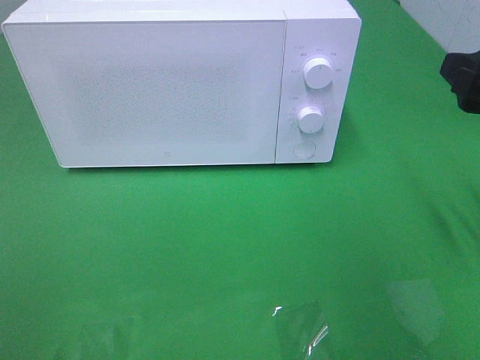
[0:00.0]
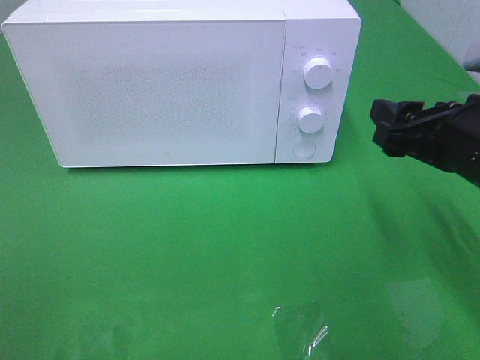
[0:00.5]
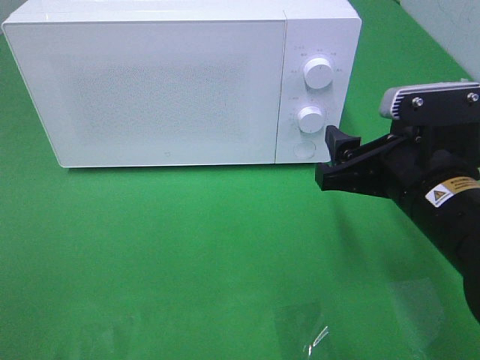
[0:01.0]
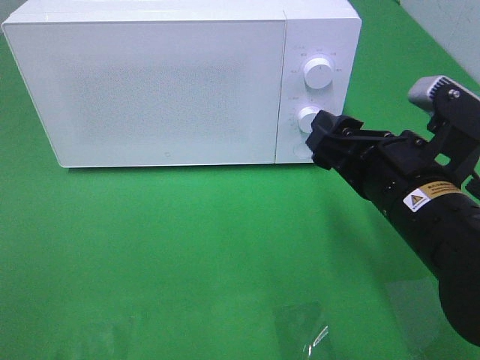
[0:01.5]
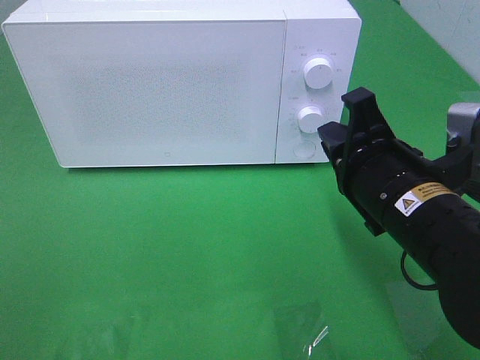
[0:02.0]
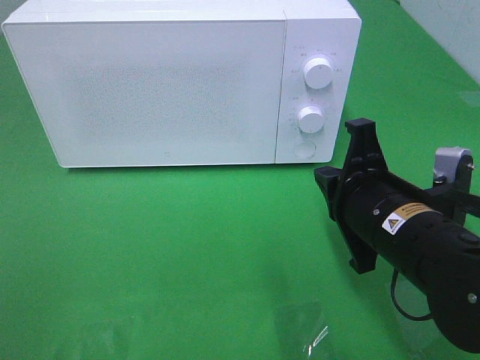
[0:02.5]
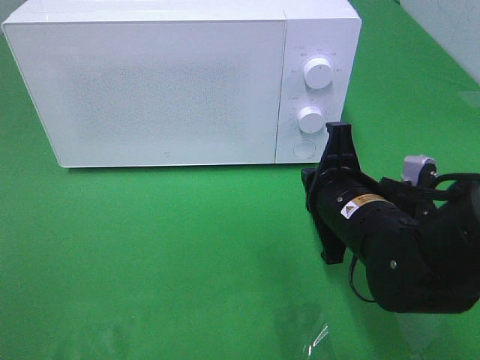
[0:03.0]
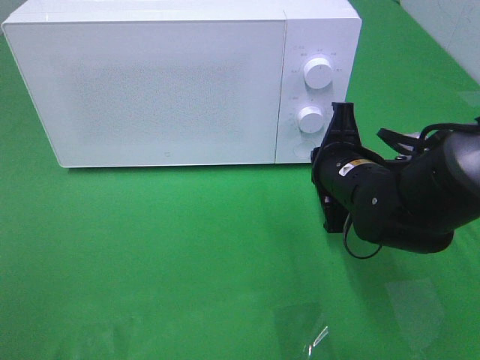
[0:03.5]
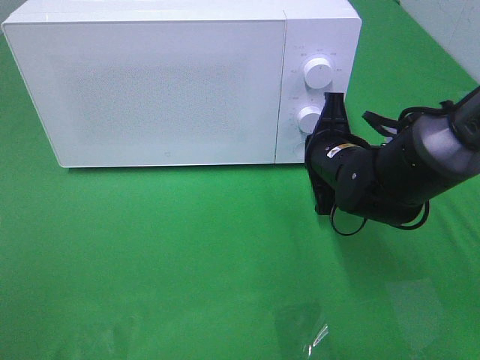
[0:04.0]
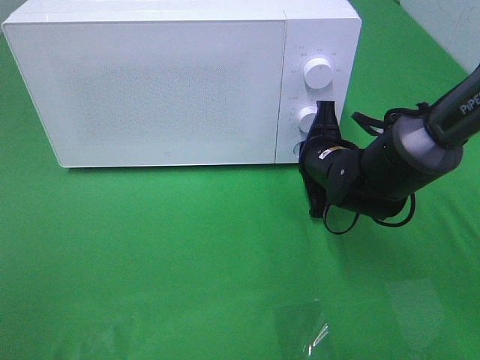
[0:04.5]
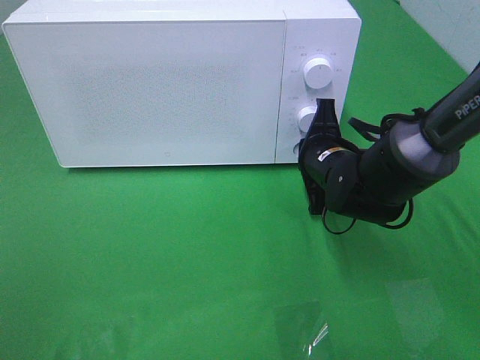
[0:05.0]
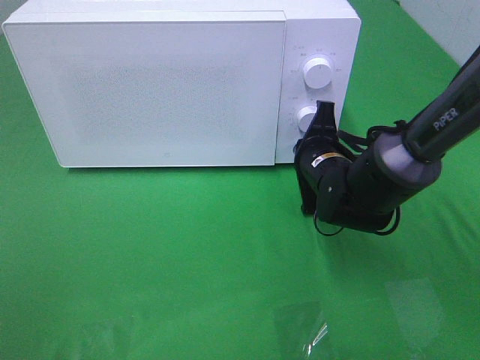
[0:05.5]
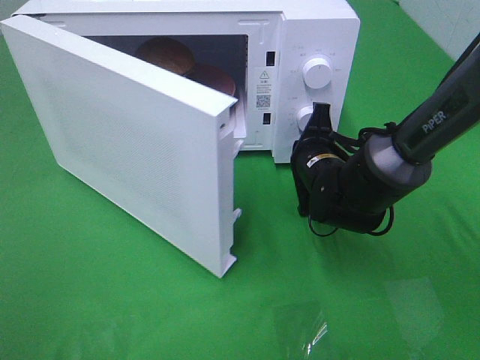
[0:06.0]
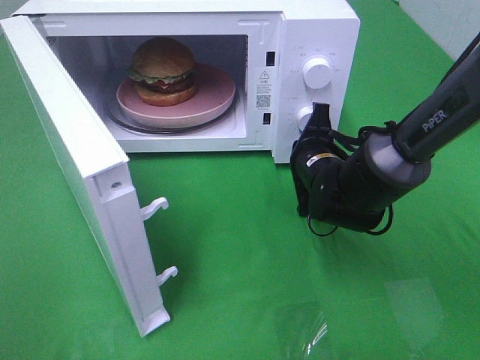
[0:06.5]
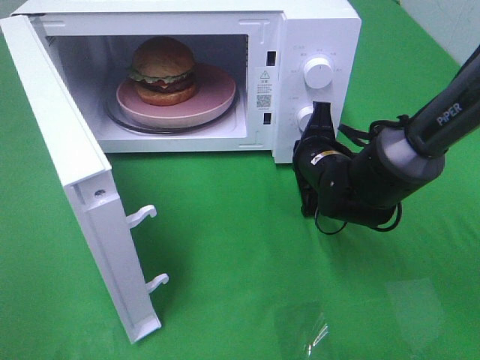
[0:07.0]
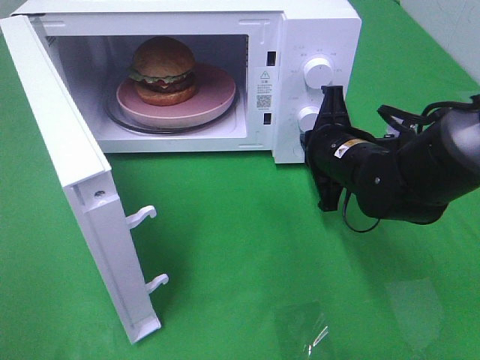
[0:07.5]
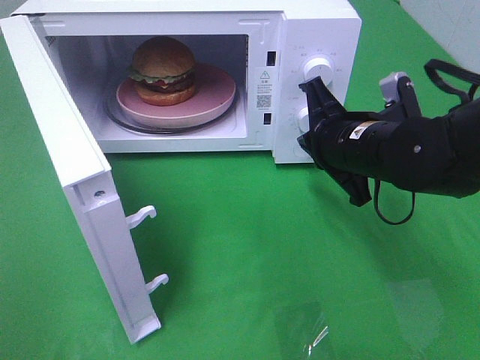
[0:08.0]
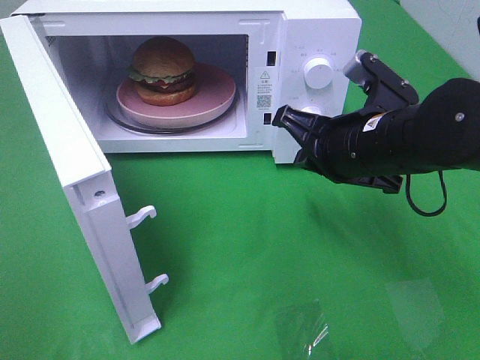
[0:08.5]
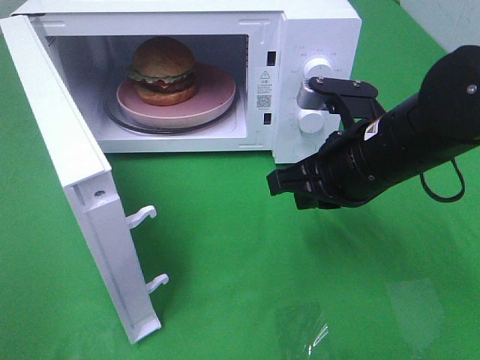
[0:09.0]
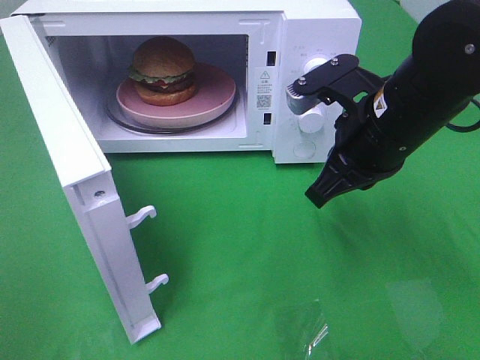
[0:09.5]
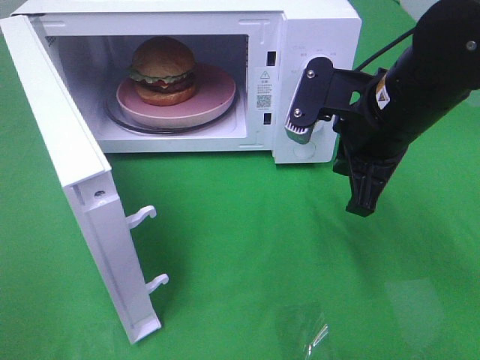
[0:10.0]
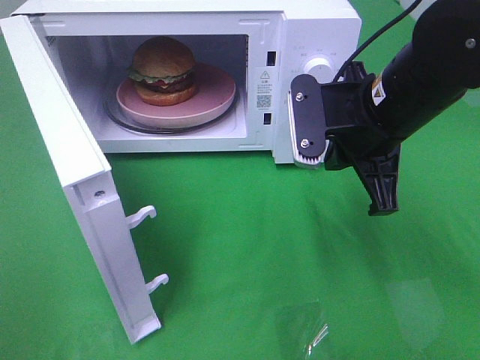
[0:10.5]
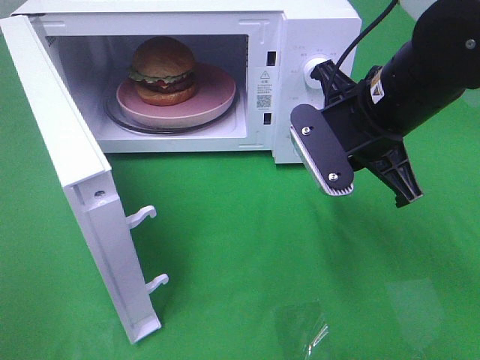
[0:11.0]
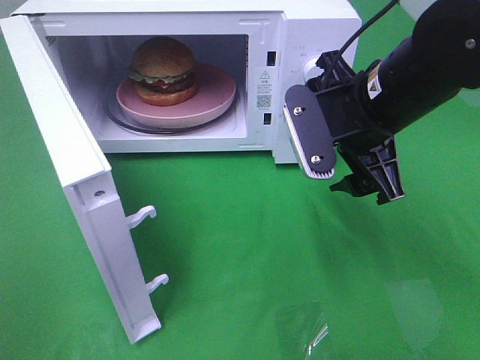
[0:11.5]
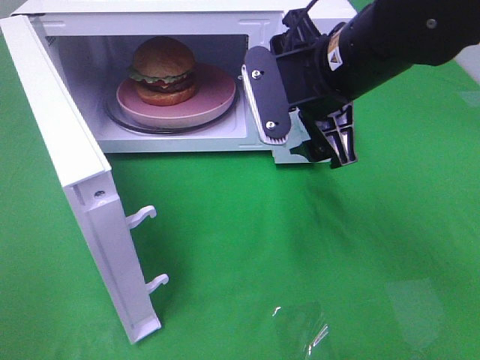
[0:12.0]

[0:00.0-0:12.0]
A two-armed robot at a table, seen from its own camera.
Task of the whole recording: Heat the burger.
Step, 0:00.0 to 0:07.0: Right hand: press the switch.
0:00.0 to 0:02.0: The right gripper heads to the left and downward, covering approximately 15 cm, and closes.
0:02.0 to 0:04.0: The right gripper moves forward and downward, roughly 15 cm.
0:06.0 to 0:08.0: The right gripper travels upward and backward by about 10 cm.
0:08.0 to 0:10.0: The right gripper travels upward by some 5 cm.
0:10.0 to 0:12.0: The right gripper shifts by some 5 cm, and opens.

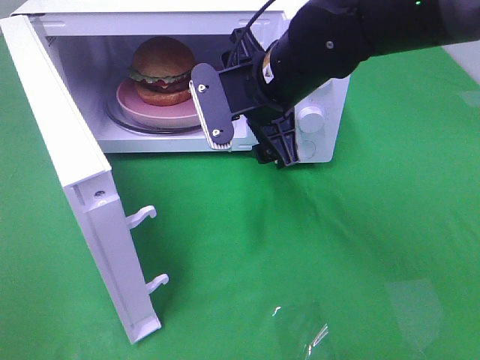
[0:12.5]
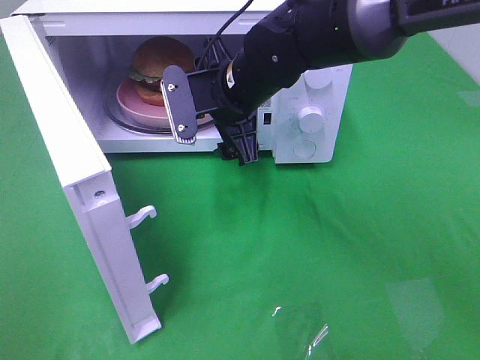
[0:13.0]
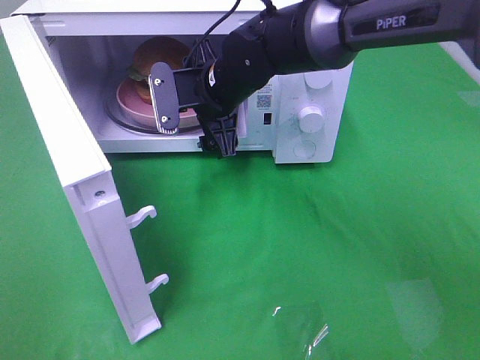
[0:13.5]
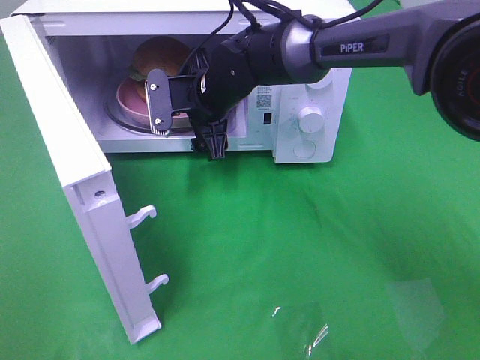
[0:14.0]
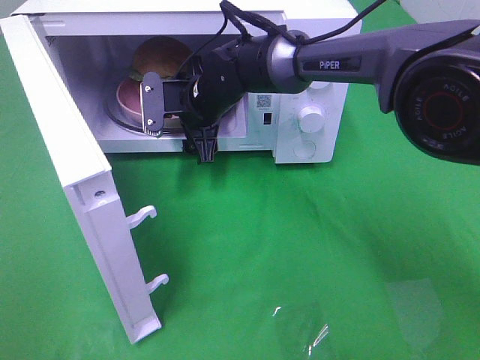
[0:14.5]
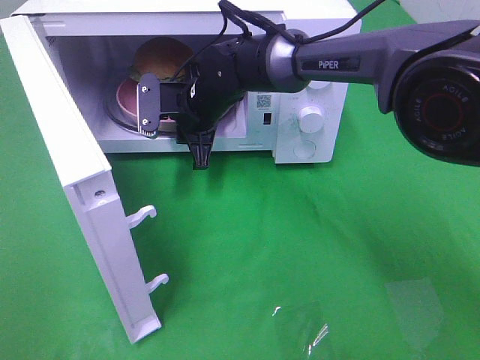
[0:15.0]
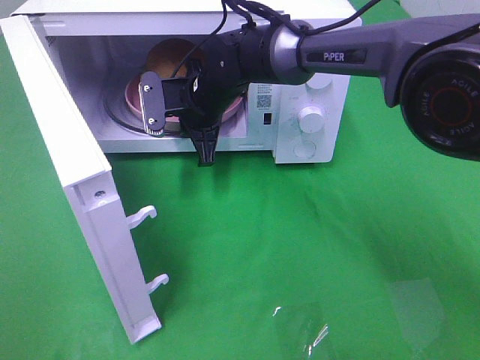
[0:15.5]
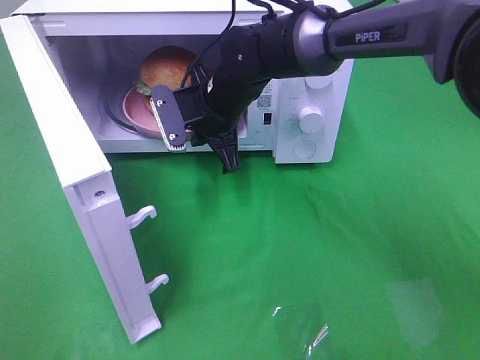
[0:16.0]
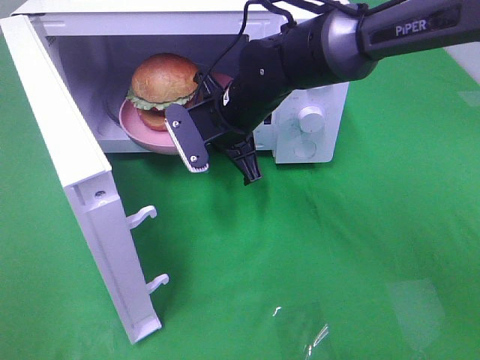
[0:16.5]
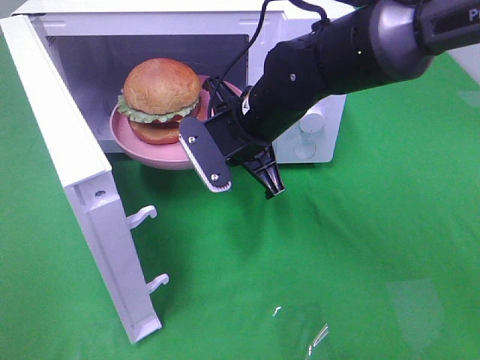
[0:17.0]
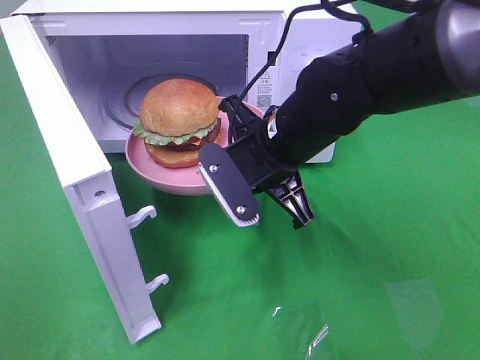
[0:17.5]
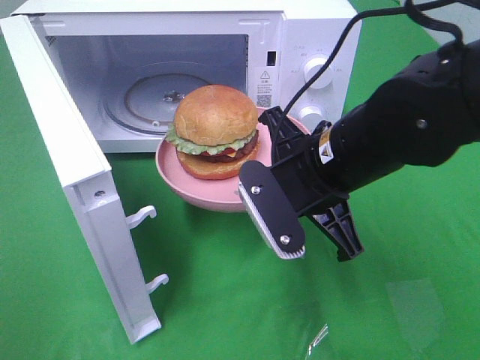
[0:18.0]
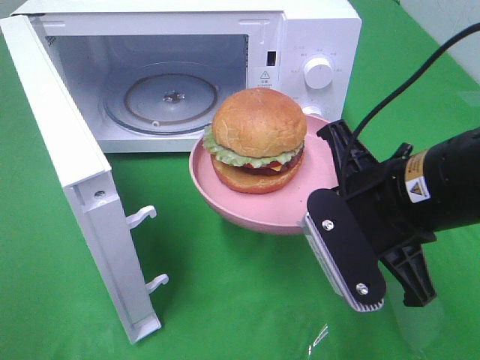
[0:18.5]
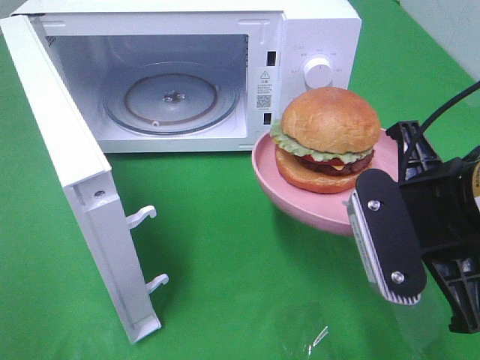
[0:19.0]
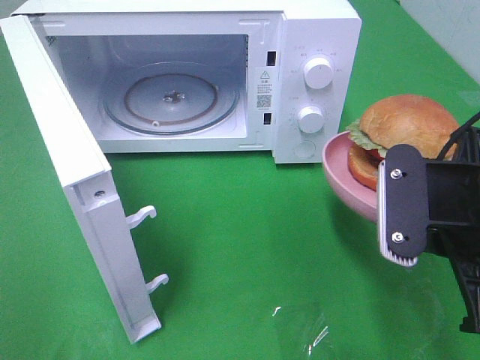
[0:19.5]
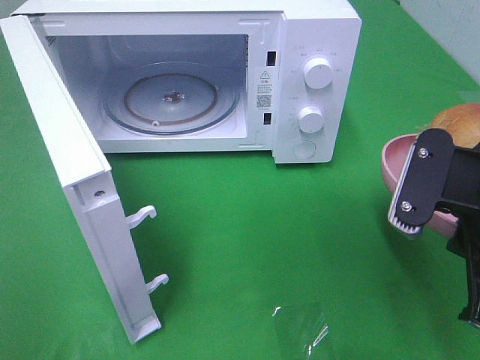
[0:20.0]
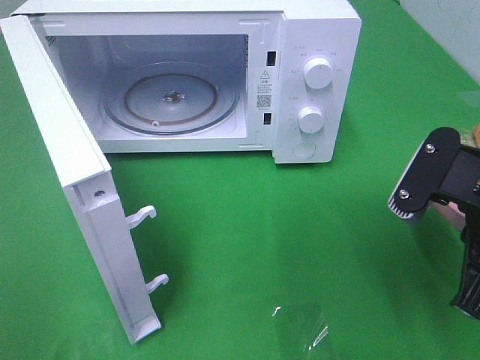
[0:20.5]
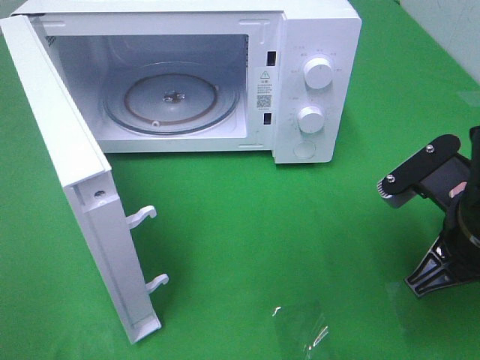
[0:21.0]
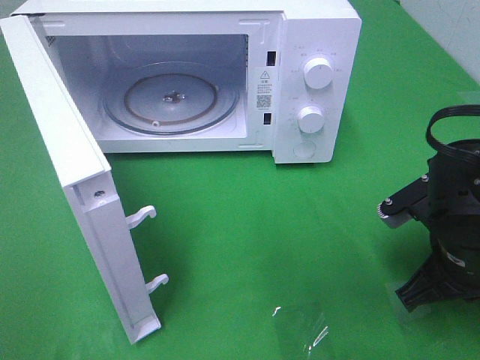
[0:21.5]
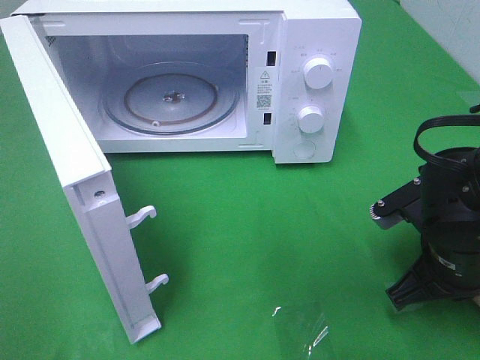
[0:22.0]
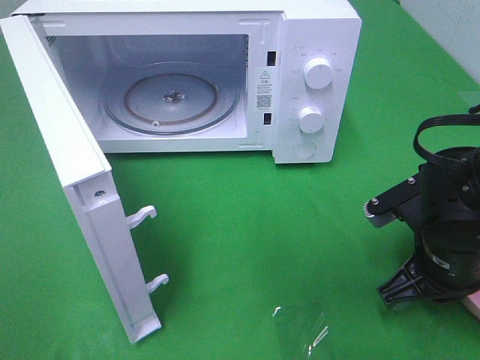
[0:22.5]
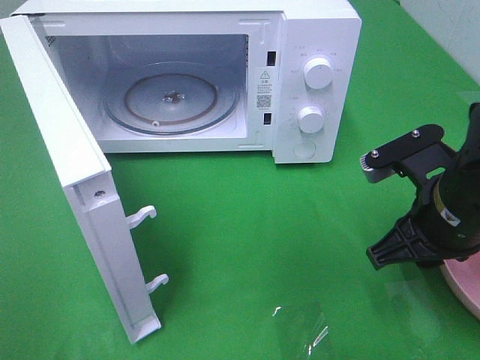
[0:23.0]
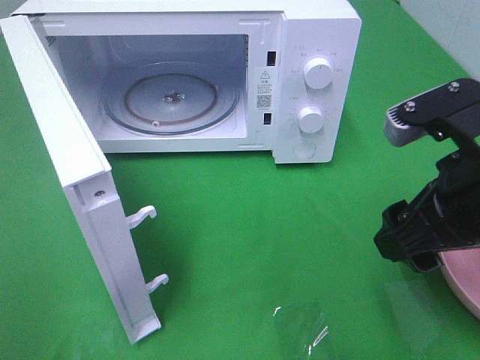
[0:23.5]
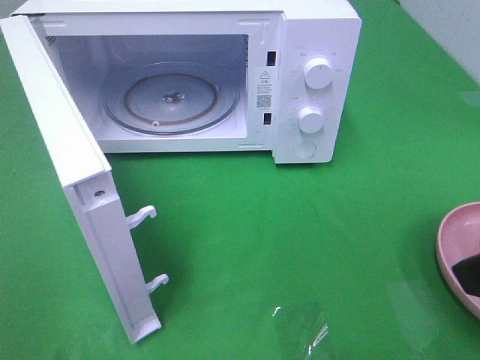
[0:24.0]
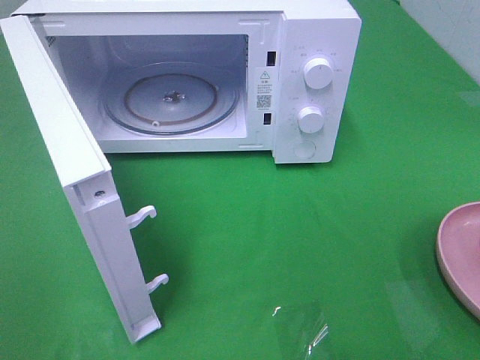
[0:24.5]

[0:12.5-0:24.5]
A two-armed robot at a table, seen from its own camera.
Task of the whole recording: Heat the burger.
Step, 0:12.5 to 0:15.0: Right hand: grab the plate with the hamburger.
Step, 0:15.5 to 0:23.5: Right hand: place the plate on the table.
0:12.5 to 0:14.5: The right gripper moves forward, downward and to the left, roughly 15 cm.
0:14.5 to 0:16.5: The right gripper heads backward, covering about 5 cm, and closes its fingers.
0:16.5 to 0:18.5: The right gripper heads backward and to the right, covering approximately 25 cm.
0:18.5 to 0:20.5: The right gripper heads to the right, covering about 5 cm.
0:20.5 to 0:22.5: The right gripper goes roughly 10 cm downward.
0:22.5 to 0:24.5: The right gripper travels upward and backward by some 25 cm, and opens.

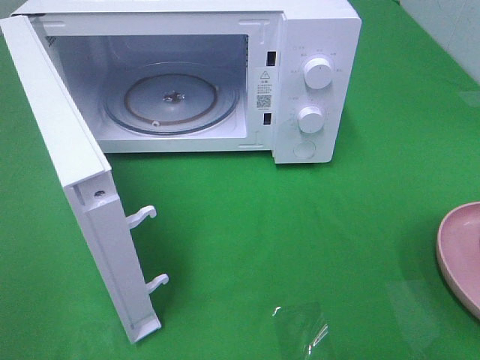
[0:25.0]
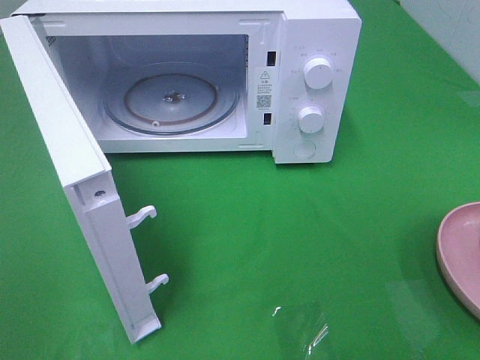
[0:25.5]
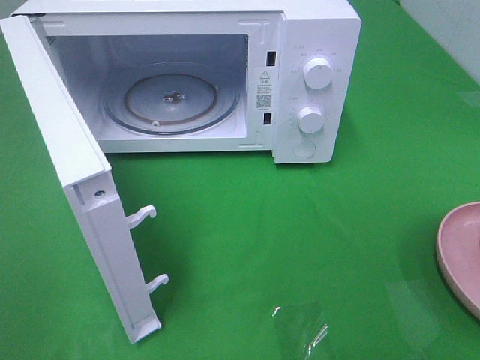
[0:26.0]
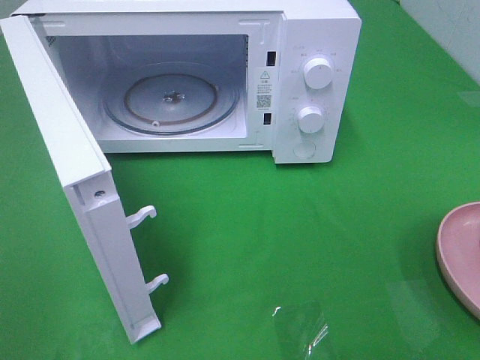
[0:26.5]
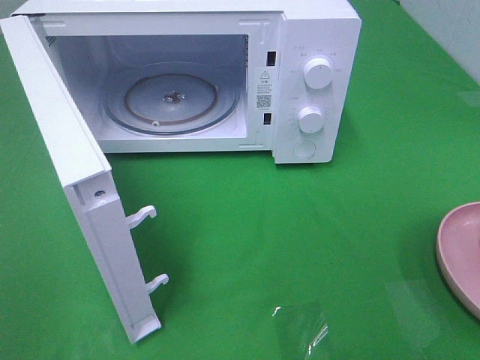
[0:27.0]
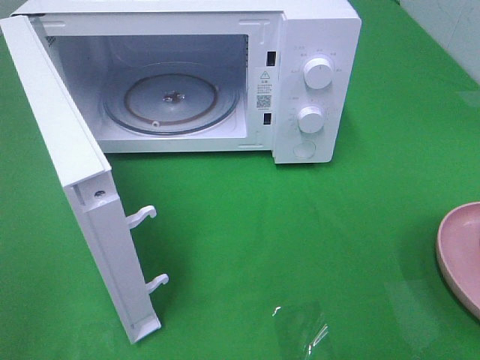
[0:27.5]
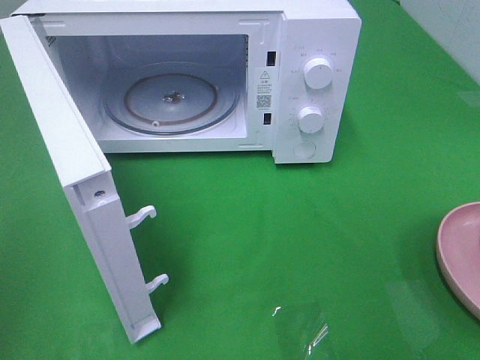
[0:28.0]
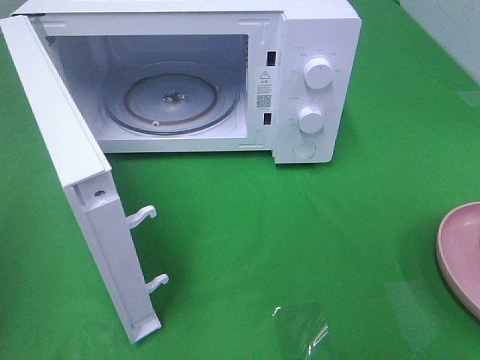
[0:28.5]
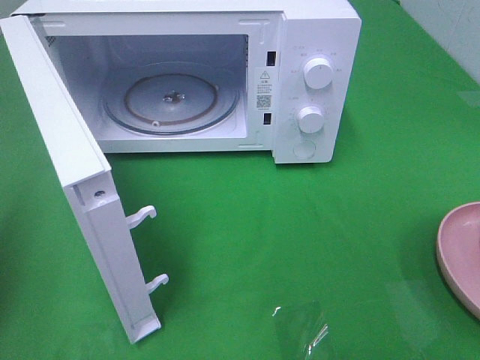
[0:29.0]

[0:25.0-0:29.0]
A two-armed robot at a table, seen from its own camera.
Task of the whole recording: Heat the burger.
0:27.0 to 0:29.0: The left gripper heads forward, covering some 15 cm, and closes its fingers.
